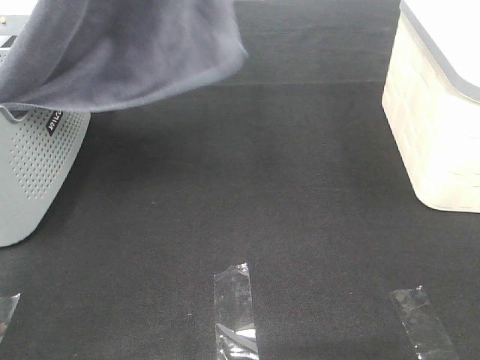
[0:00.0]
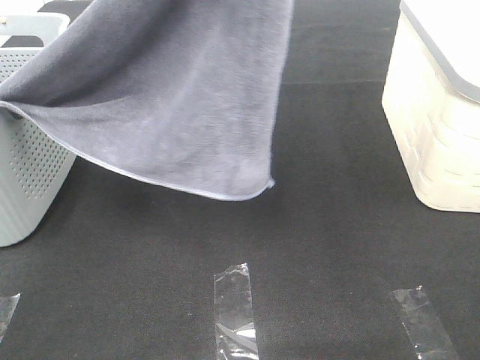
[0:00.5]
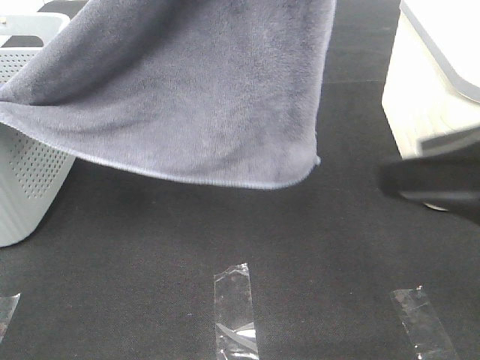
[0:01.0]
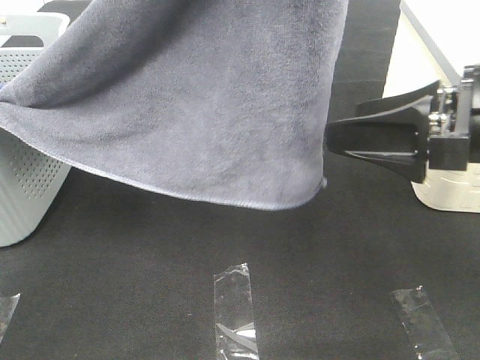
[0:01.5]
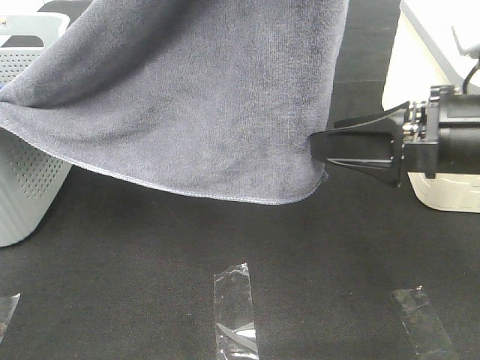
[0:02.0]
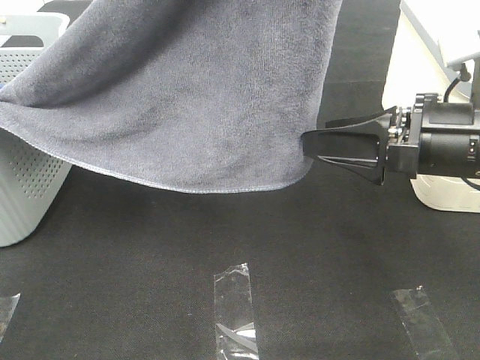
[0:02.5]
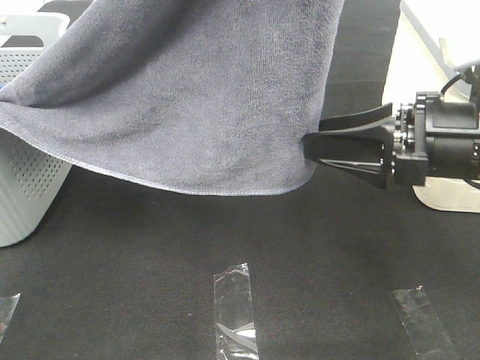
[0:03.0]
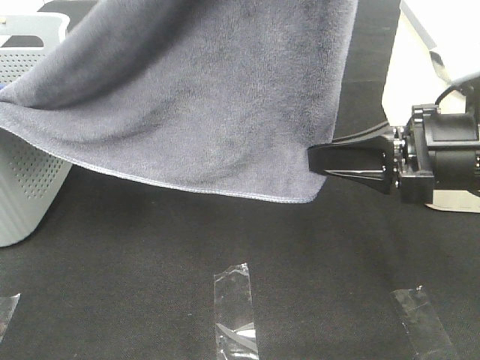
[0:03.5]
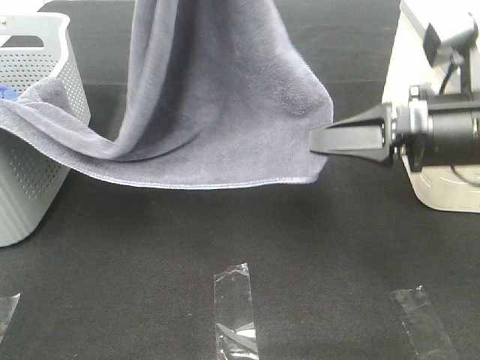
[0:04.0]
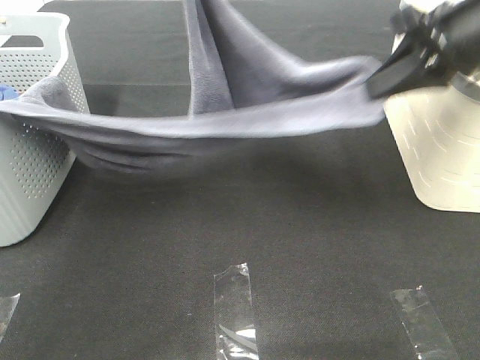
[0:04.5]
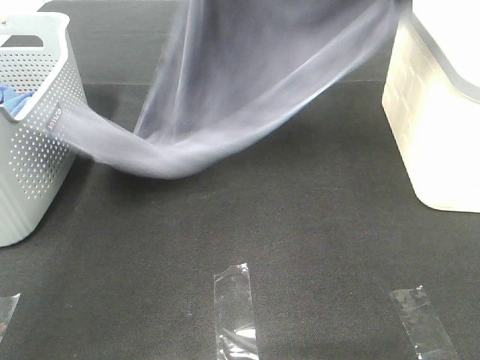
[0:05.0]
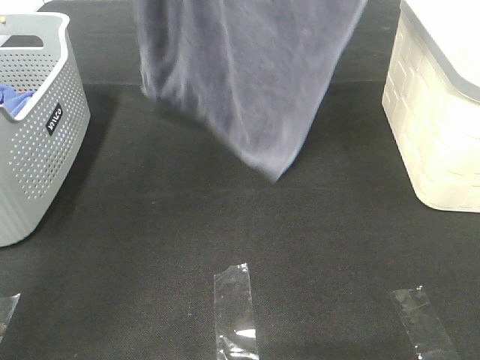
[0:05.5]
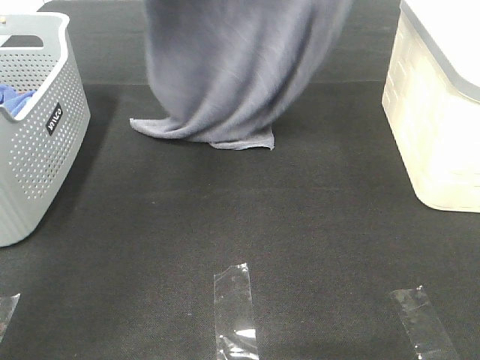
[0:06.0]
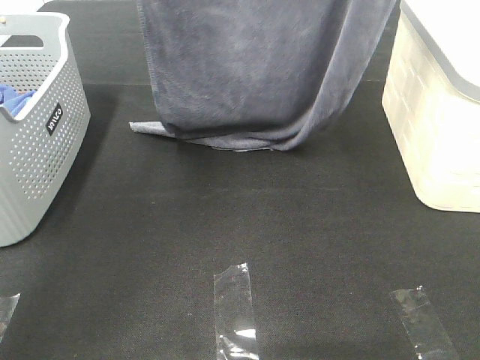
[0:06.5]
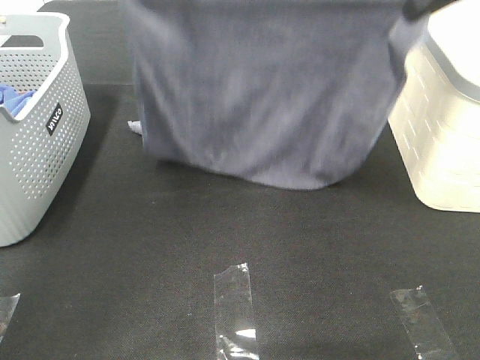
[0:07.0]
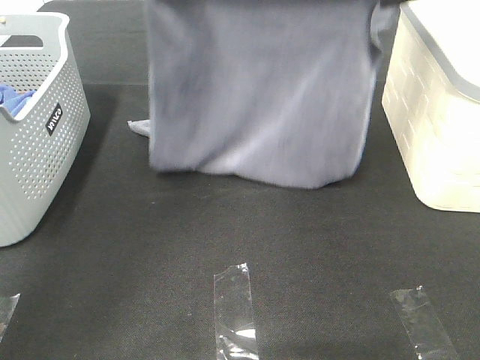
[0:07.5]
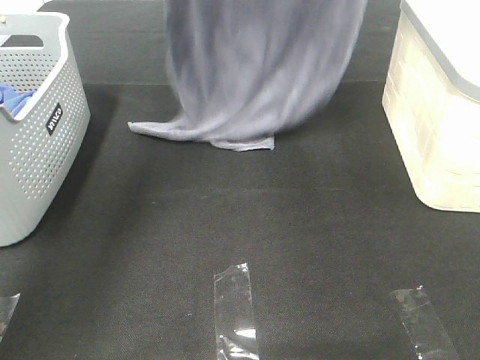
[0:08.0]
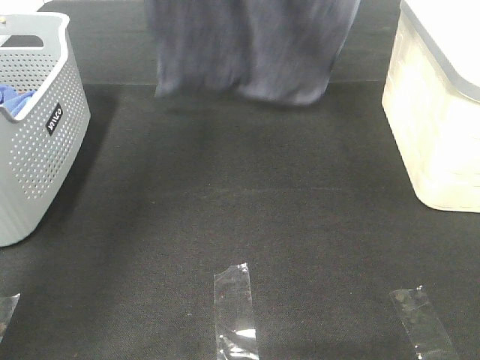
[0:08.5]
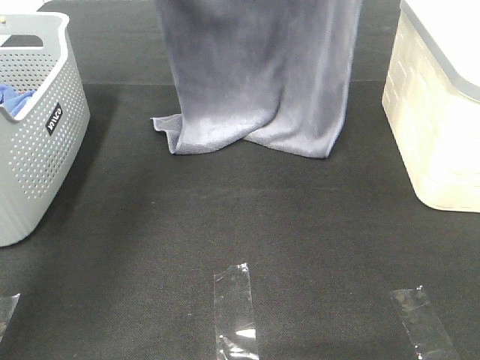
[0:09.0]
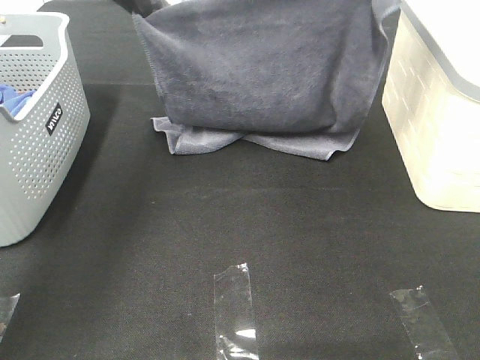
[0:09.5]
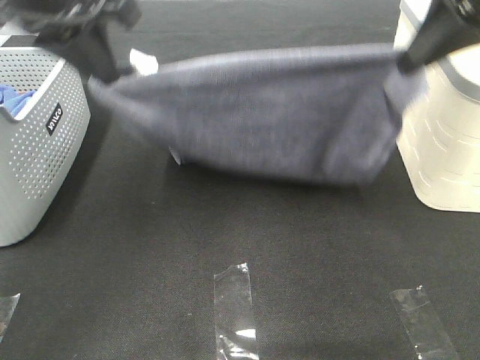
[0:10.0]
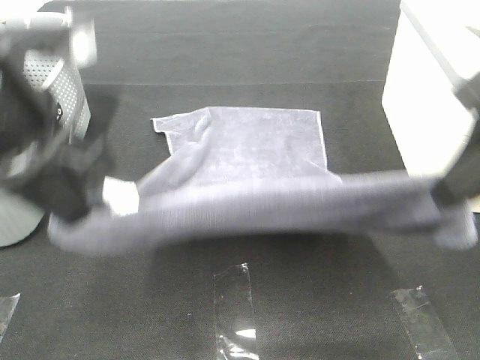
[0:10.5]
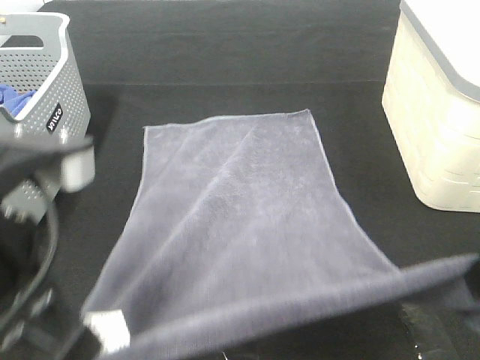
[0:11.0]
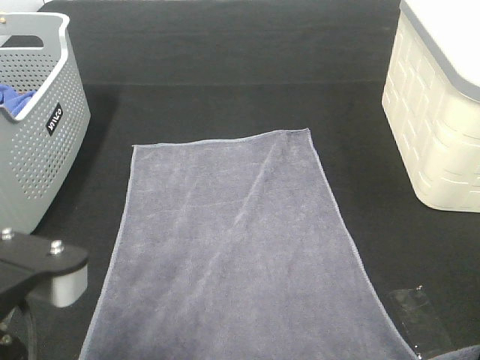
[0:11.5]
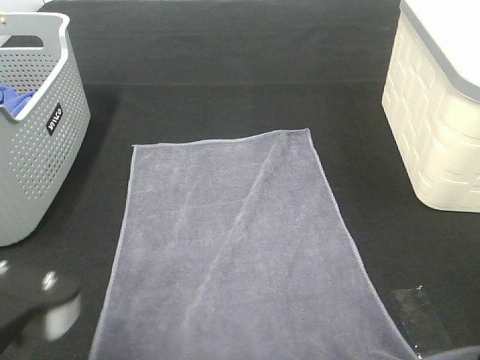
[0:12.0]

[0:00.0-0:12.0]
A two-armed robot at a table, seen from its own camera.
Task of the whole recording: Remove the towel and place it.
Step, 0.0 to 2.0 s: Right hand: grab a corner of the grey towel and straighten it.
Step, 2.5 to 7.5 s: Left hand: spread the grey towel flat on the table.
Step, 2.5 to 7.5 s: Right hand: spread the grey towel flat on the table.
0.0 to 2.0 s: The right gripper is displaced forward by roughly 20 cm. The left gripper is displaced backward and to the right by about 15 cm.
2.0 to 4.0 s: The right gripper closes its fingers. Meanwhile the left gripper travels forward by some 5 cm.
4.0 to 6.0 s: The left gripper goes roughly 15 cm forward and to the left; the right gripper shifts roughly 30 cm upward and forward.
6.0 to 8.0 s: The left gripper heads downward, covering approximately 5 cm. Meanwhile the right gripper is displaced forward and downward by approximately 10 cm.
8.0 to 10.0 s: Both grippers move backward and downward, some 20 cm.
10.0 to 12.0 s: The two grippers go some 25 cm backward and downward.

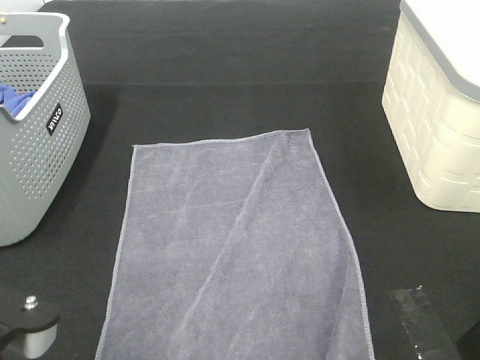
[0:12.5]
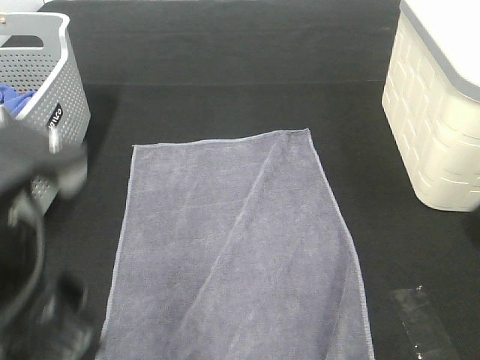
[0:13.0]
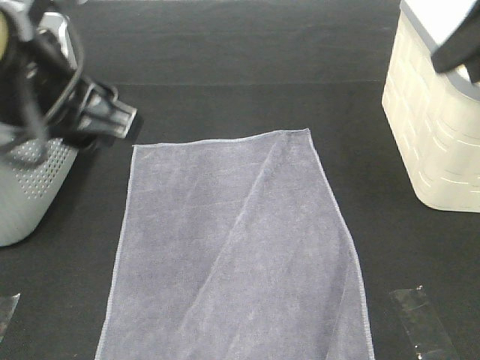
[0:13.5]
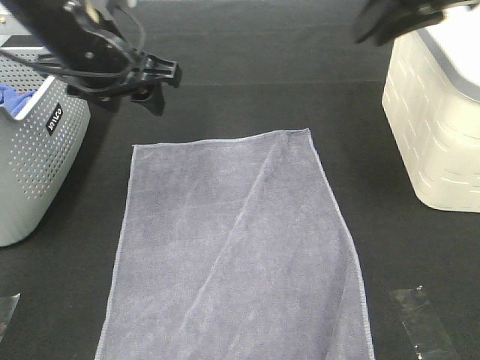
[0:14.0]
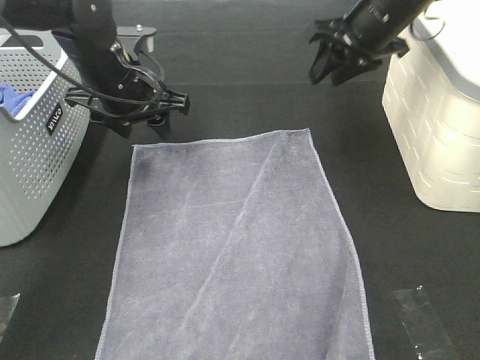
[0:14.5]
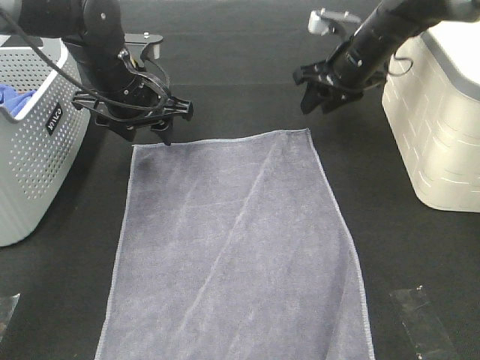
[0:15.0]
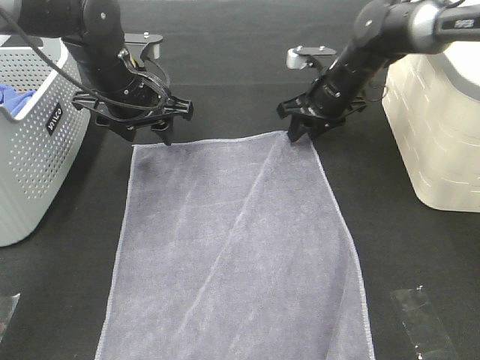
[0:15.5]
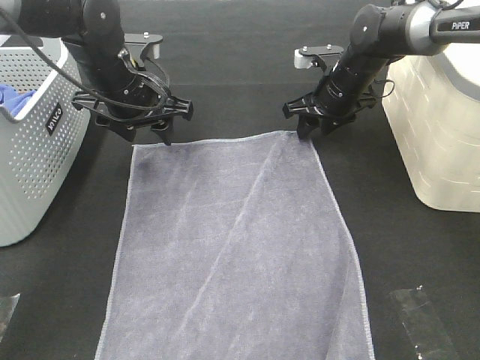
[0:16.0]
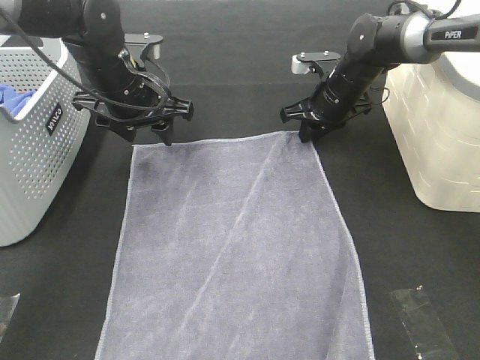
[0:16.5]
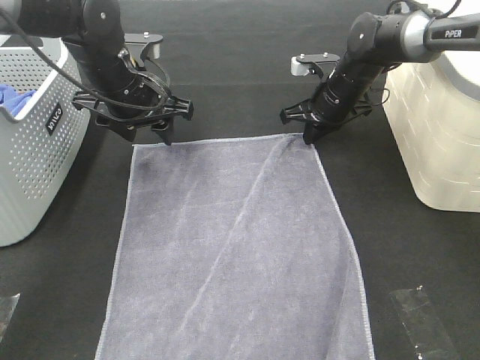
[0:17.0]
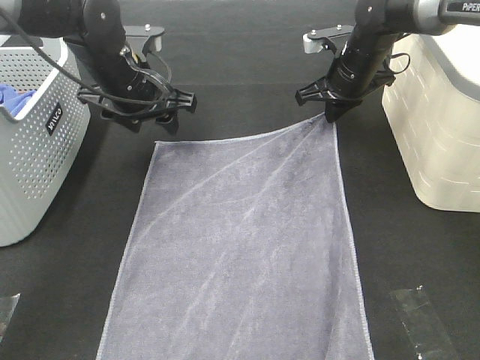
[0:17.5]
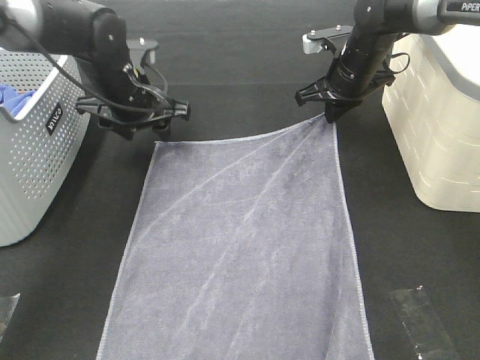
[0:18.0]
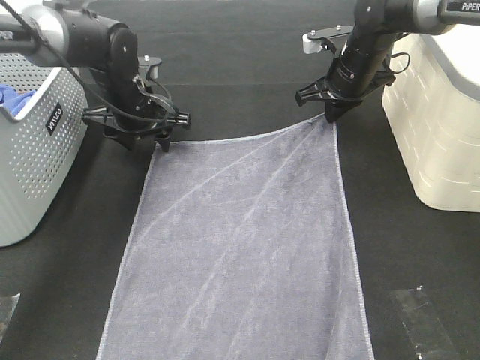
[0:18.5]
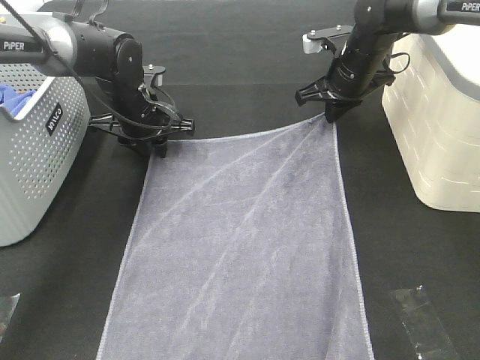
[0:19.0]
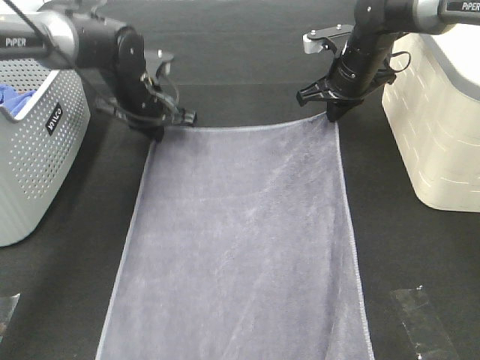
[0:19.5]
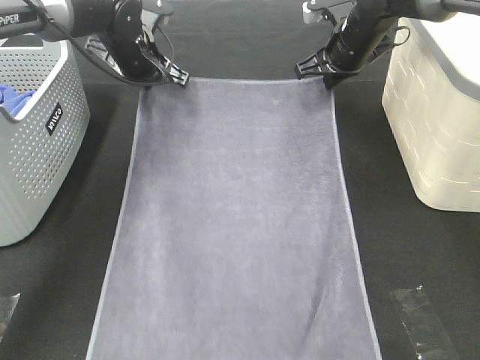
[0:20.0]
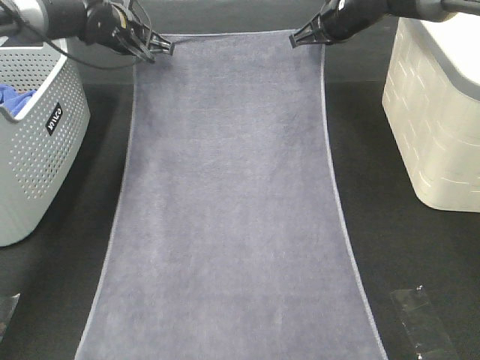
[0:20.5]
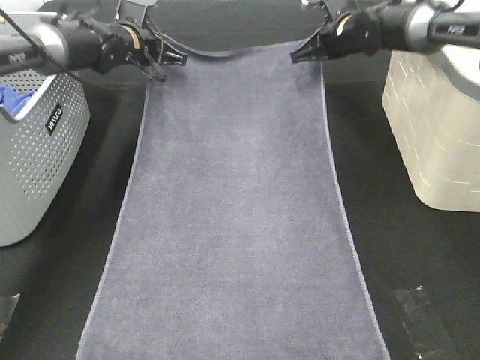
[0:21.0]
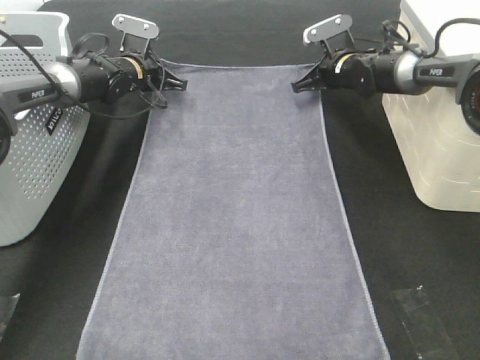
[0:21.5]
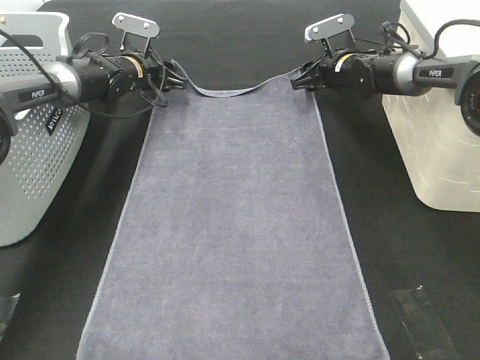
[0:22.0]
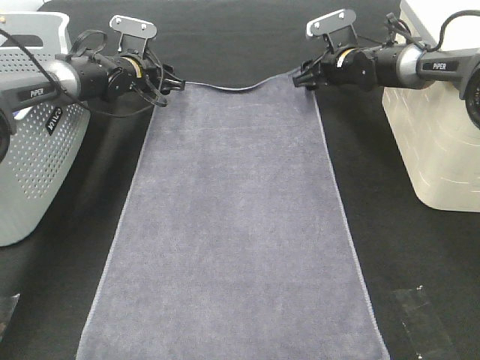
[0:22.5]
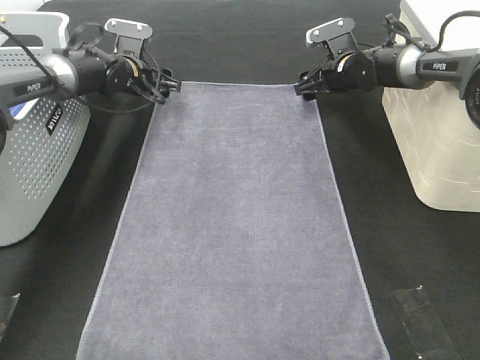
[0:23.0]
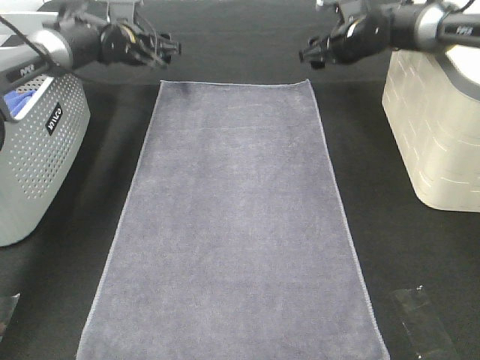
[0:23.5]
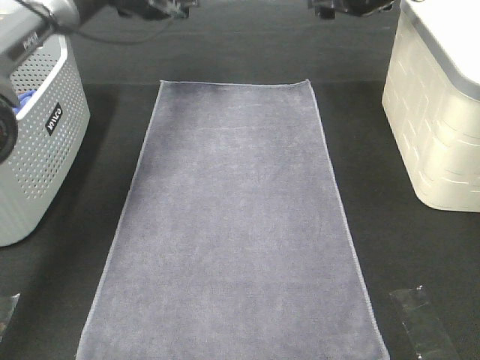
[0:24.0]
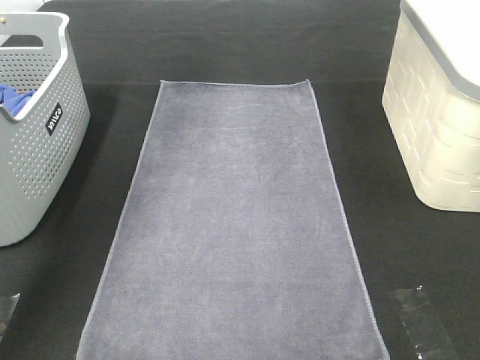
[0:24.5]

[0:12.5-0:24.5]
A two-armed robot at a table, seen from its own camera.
Task of the whole recording: Remove the towel and place it.
Step, 12.5 to 15.5 s: Left hand:adjust the gray towel.
Step, 12.5 to 15.5 s: Right hand:adjust the gray towel.
12.5 to 14.5 s: The two grippers go approximately 35 cm forward.
14.5 to 16.5 s: The right gripper travels downward by about 15 cm.
16.5 to 18.5 s: The left gripper heads downward and forward, covering some 10 cm.
18.5 to 20.5 s: The left gripper heads forward and upward, covering about 10 cm, and closes. Meanwhile the right gripper travels upward by some 5 cm.
20.5 to 22.5 s: The two grippers go about 10 cm downward. The right gripper opens. Meanwhile the left gripper opens.
22.5 to 24.5 s: The grippers both shift upward by about 25 cm.

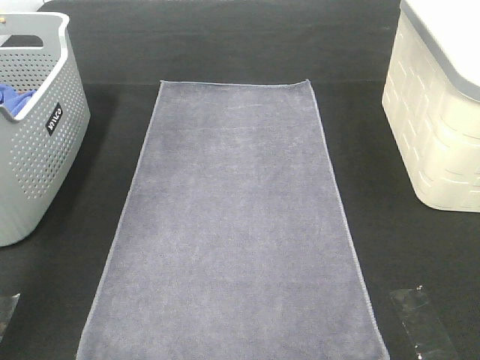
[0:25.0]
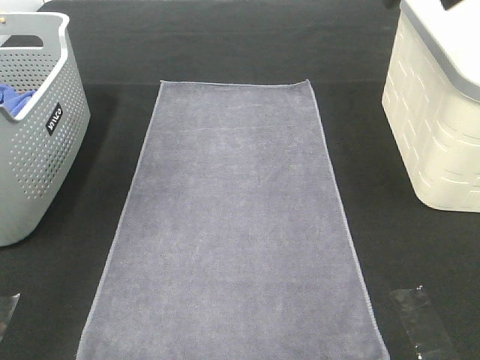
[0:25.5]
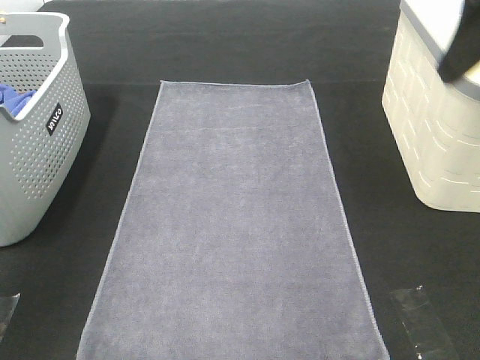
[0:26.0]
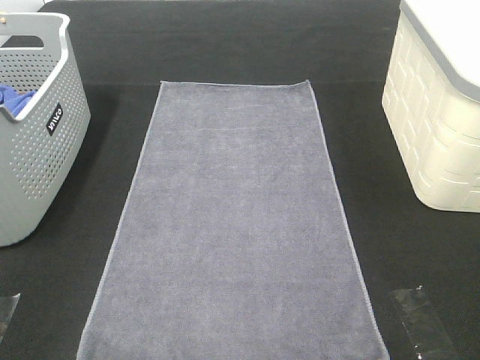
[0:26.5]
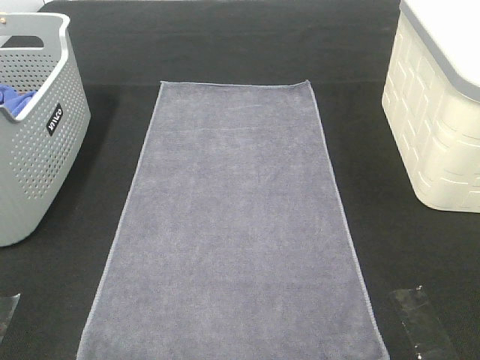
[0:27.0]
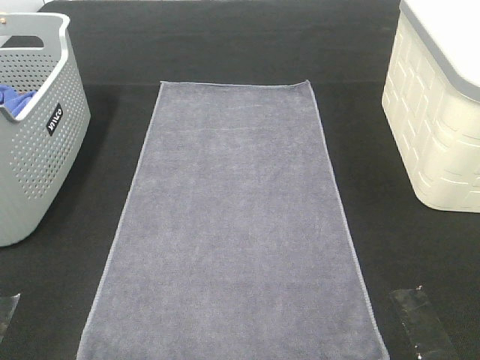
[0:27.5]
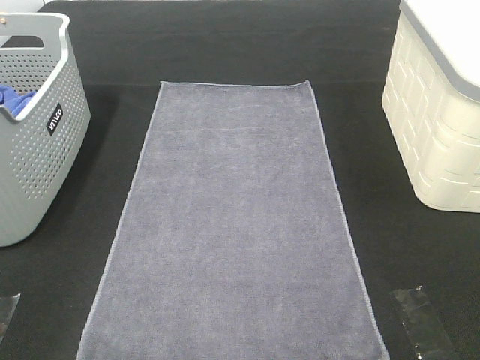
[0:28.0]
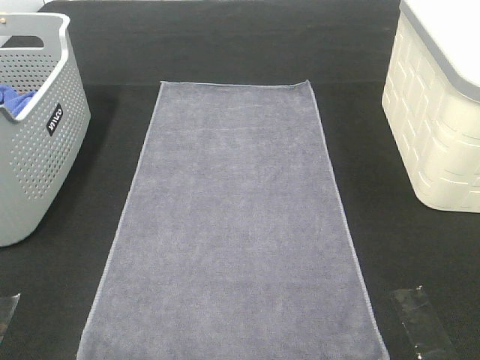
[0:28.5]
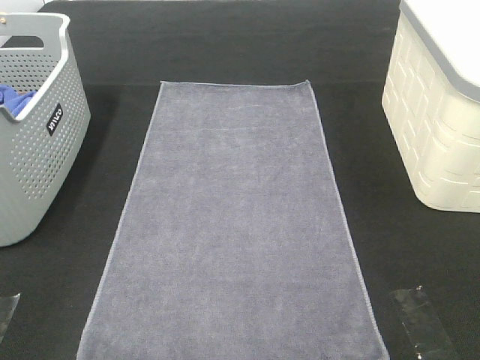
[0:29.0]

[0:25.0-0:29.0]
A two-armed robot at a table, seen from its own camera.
Task of the whole recording: Remove the towel and place it.
25.0 to 27.0 s: The left gripper goes some 50 cm backward.
